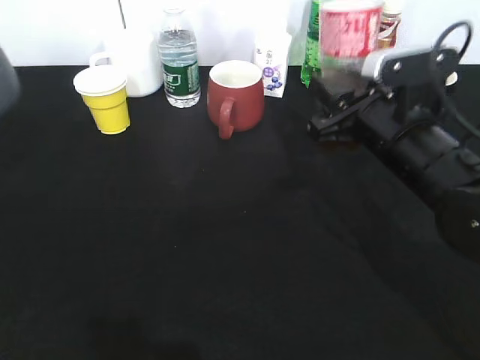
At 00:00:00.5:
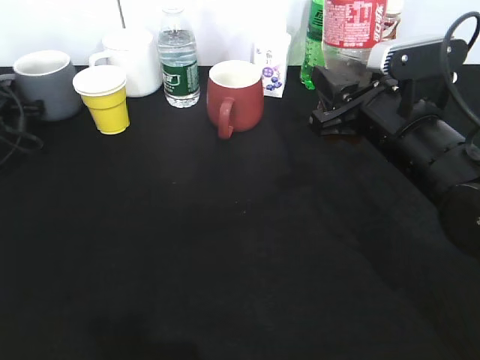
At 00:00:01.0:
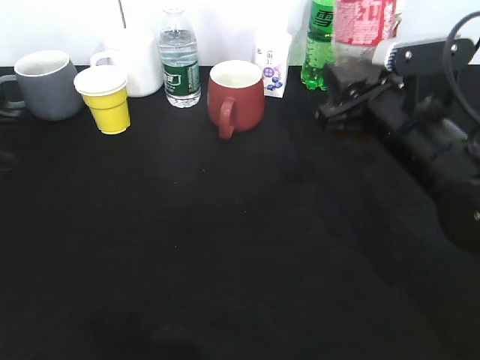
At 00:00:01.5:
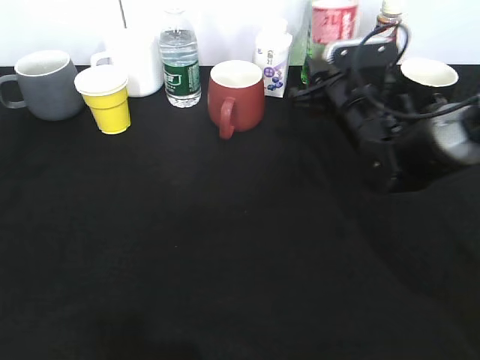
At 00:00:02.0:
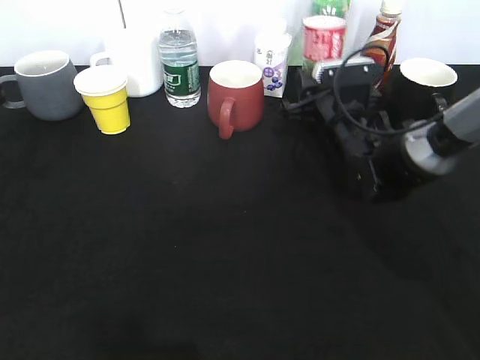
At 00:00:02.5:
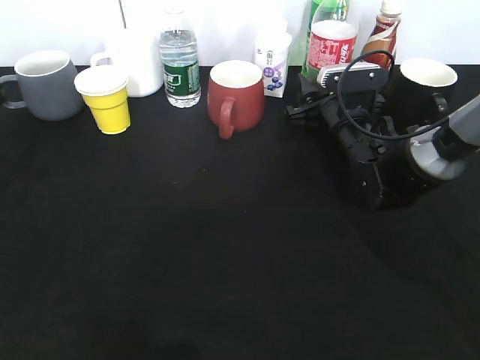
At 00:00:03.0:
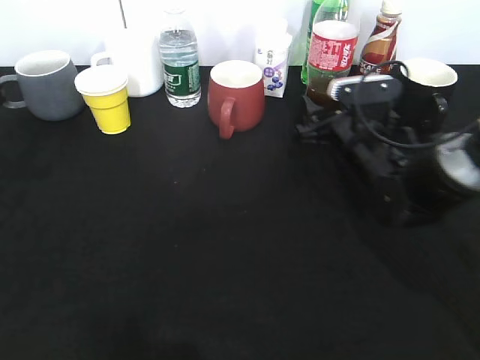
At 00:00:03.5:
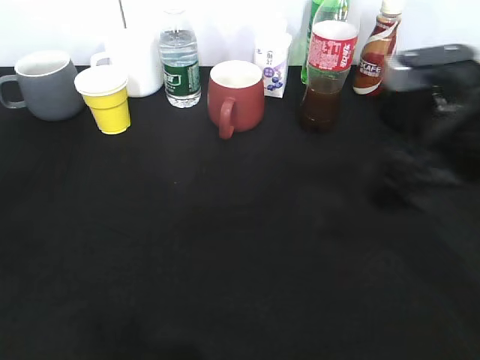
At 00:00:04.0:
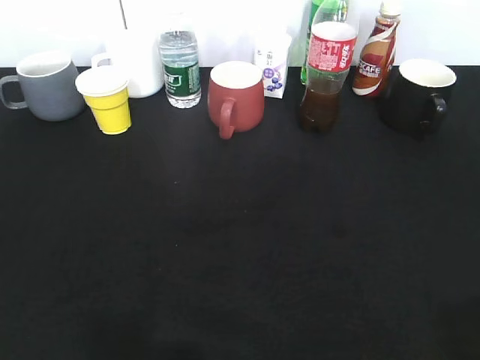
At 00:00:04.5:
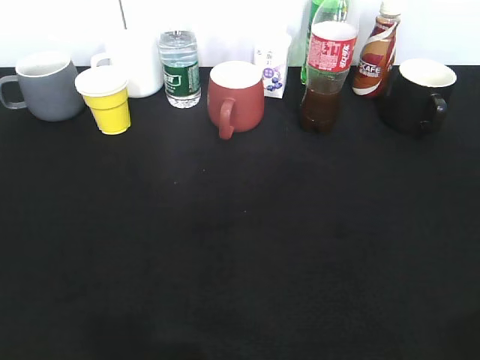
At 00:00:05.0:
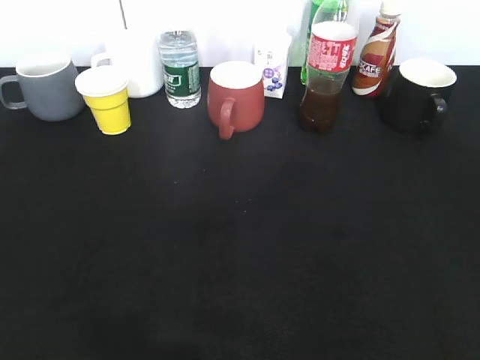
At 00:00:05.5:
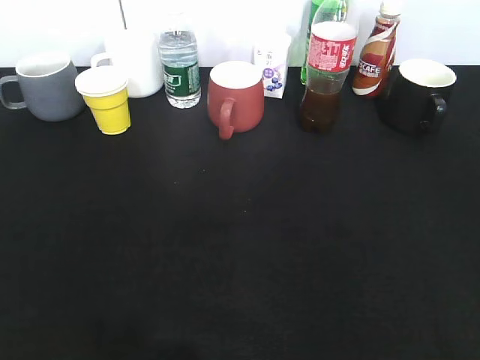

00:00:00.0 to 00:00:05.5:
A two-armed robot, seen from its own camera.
Step, 00:00:01.5 to 00:00:03.0: Place the cola bottle on the table with right gripper.
00:00:00.0 to 00:00:02.0: The right gripper shifts roughly 15 cm forward and downward. The left gripper moves to the right, roughly 5 cm, goes forward and returns, some 15 cm each way, and opens its fingers.
00:00:02.0 to 00:00:03.5: The left gripper goes some 5 cm backward; the right gripper moves backward and upward, some 25 cm, and opens.
00:00:03.5 to 00:00:05.5: The right gripper travels backward and to the right by roughly 25 cm. Meanwhile the left gripper shifts approximately 20 cm backward.
